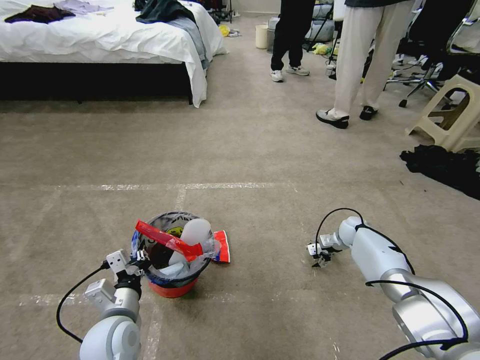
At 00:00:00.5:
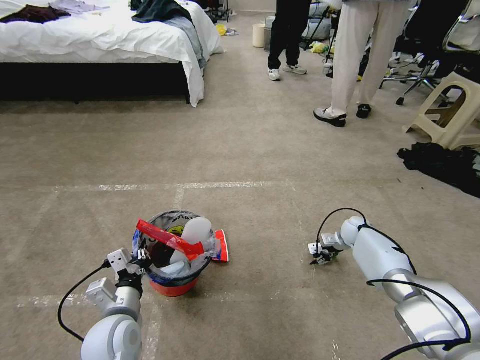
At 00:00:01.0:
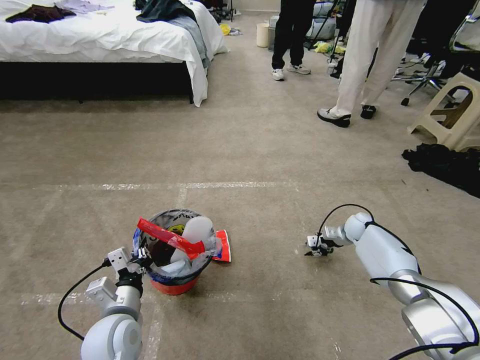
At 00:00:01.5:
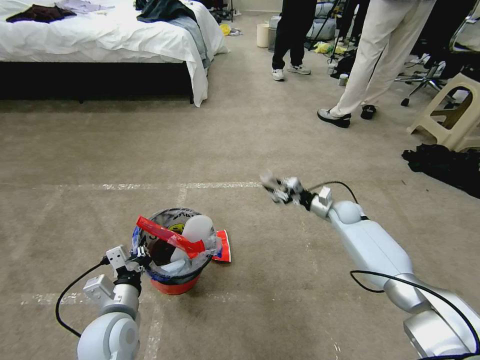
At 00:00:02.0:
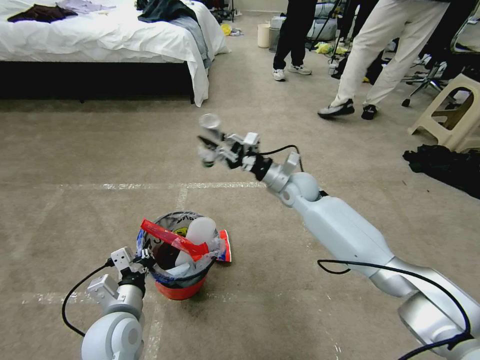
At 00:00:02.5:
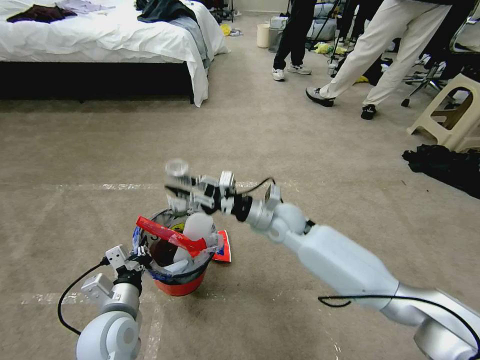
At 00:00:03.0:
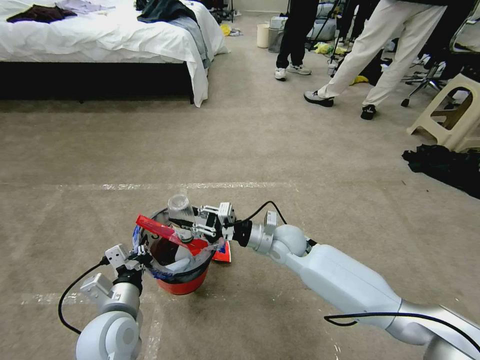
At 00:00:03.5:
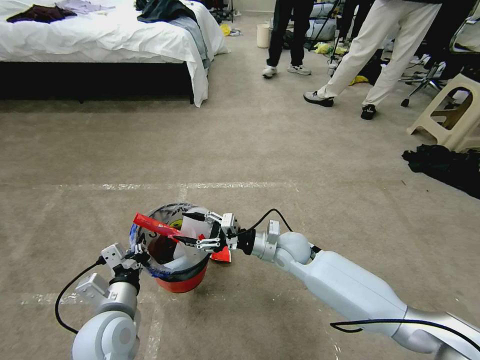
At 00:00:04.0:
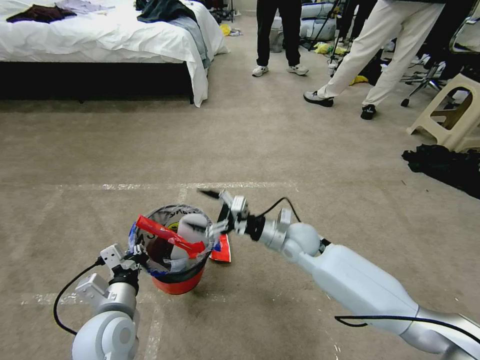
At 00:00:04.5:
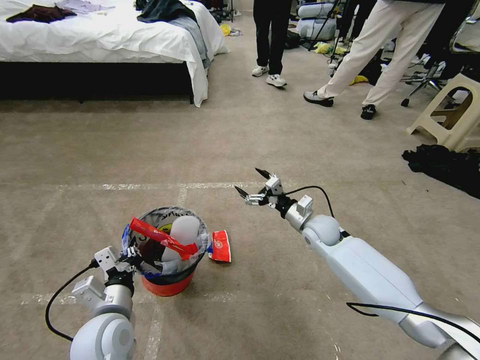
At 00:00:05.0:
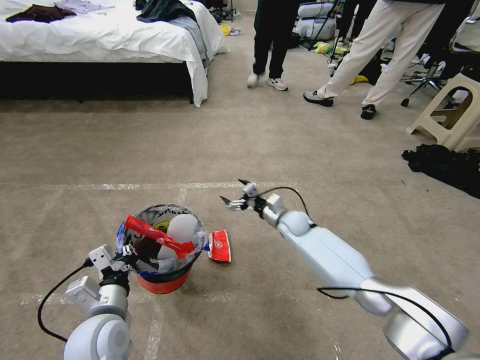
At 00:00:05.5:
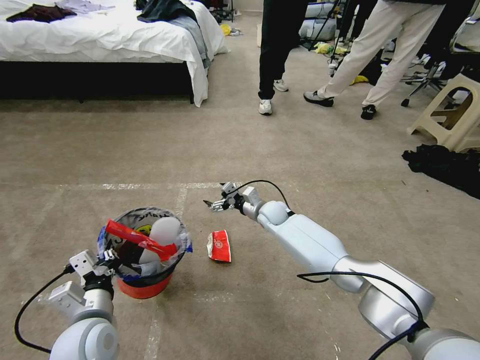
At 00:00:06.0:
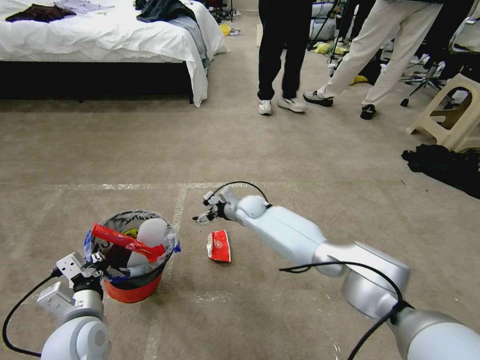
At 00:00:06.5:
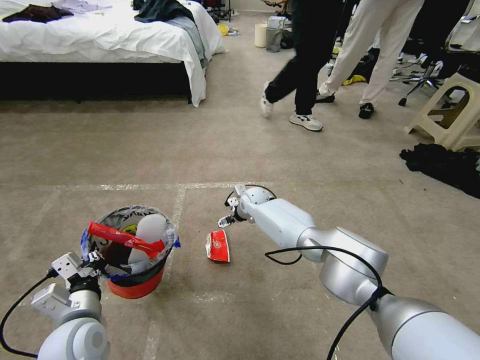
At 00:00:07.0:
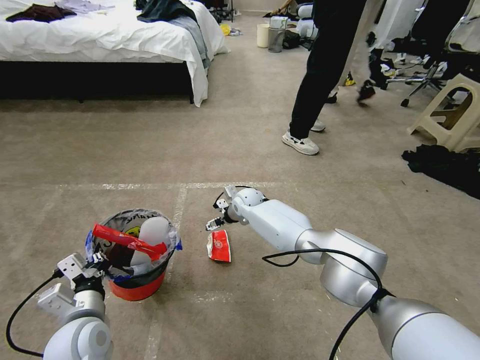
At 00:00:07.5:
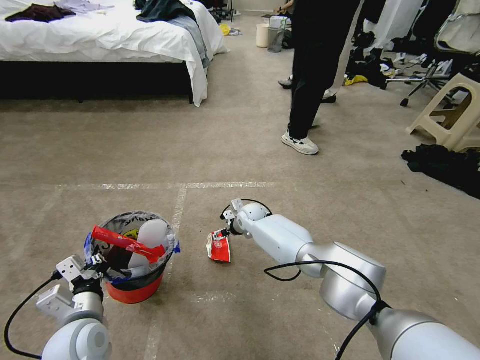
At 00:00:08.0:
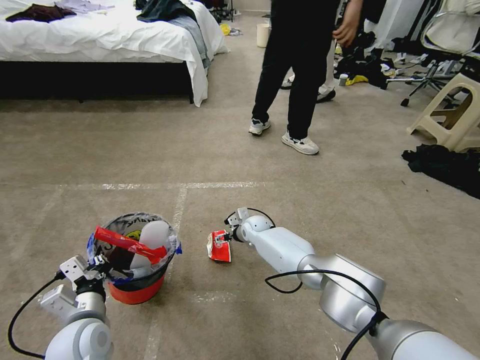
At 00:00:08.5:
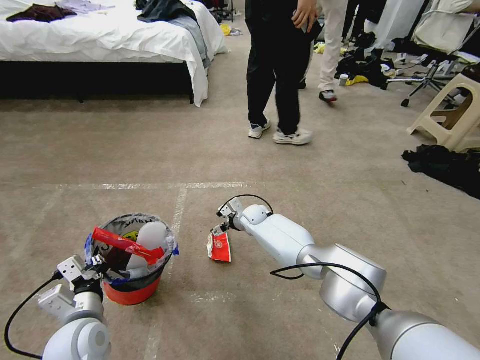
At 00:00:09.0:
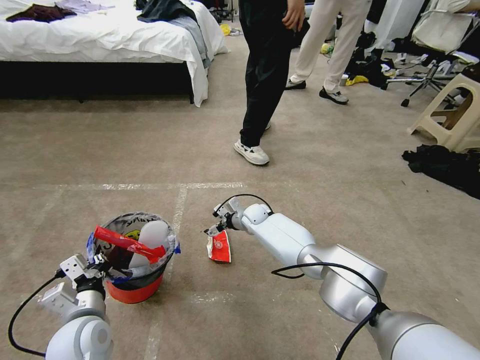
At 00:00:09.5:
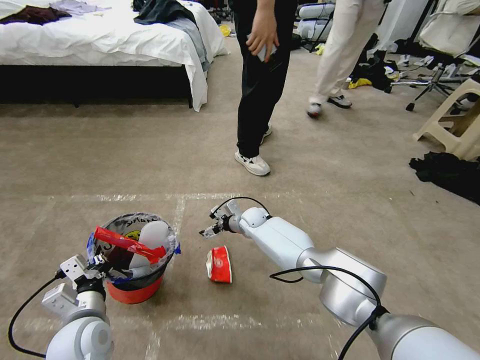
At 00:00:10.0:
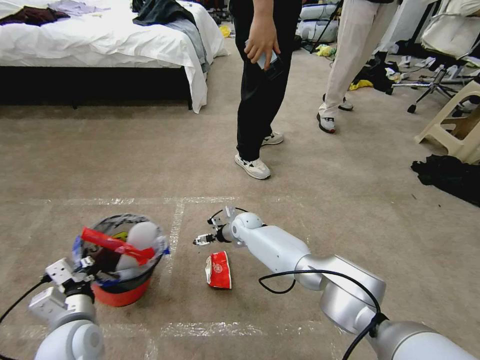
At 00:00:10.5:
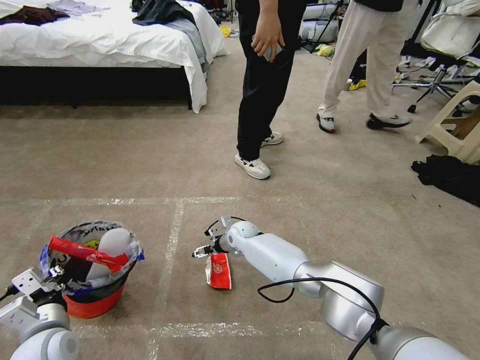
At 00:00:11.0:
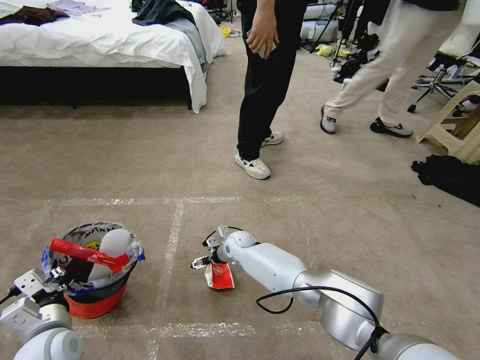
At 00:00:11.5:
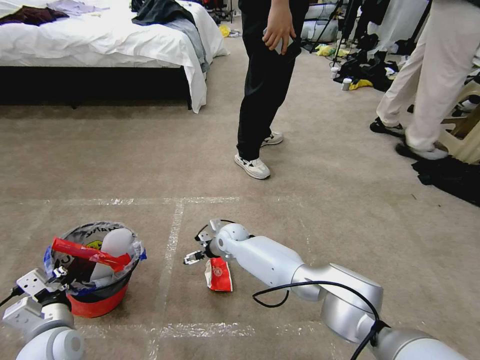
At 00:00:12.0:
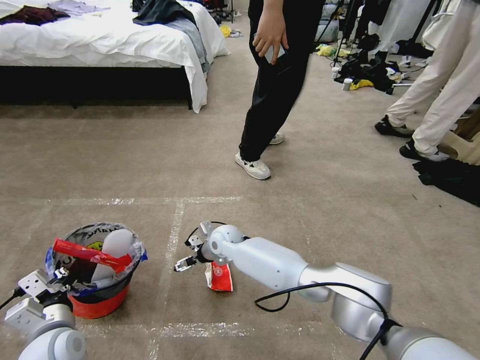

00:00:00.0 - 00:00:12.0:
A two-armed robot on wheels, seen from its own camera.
Task of the whole recording: Pick up the trash bin and place the garbage on the floor into it.
00:00:00.0 - 00:00:02.0: The right gripper shifts about 30 cm to the left and upward, and closes its fingers.
00:00:02.0 - 00:00:04.0: The right gripper moves backward and downward, approximately 15 cm, and opens up.
00:00:04.0 - 00:00:06.0: The left gripper shifts some 5 cm to the left. Meanwhile the right gripper travels forward and to the left by some 20 cm.
00:00:06.0 - 00:00:08.0: The right gripper shifts approximately 10 cm downward.
00:00:10.0 - 00:00:12.0: The right gripper shifts approximately 10 cm to the left and backward.

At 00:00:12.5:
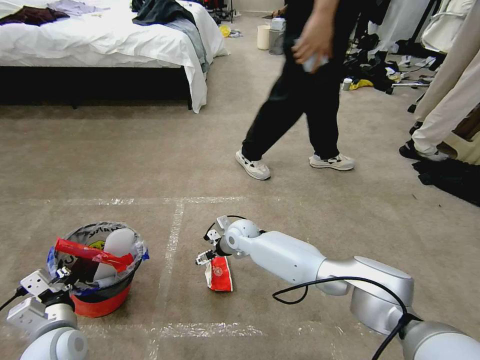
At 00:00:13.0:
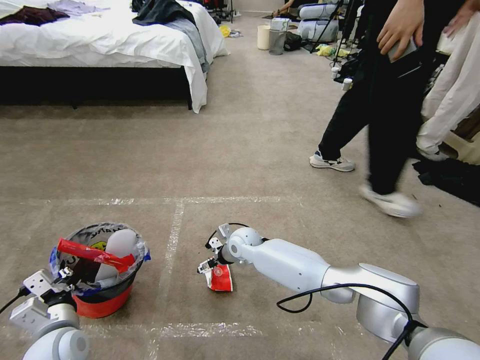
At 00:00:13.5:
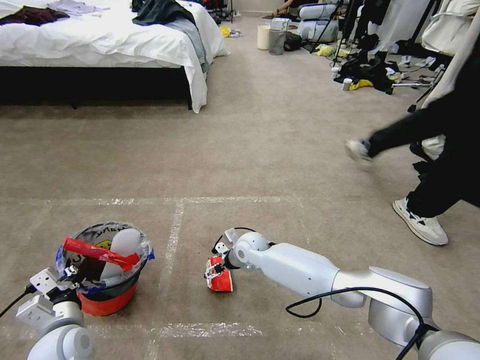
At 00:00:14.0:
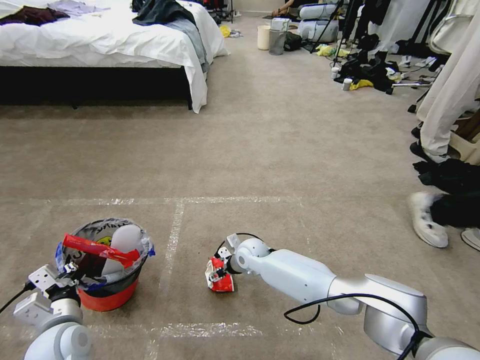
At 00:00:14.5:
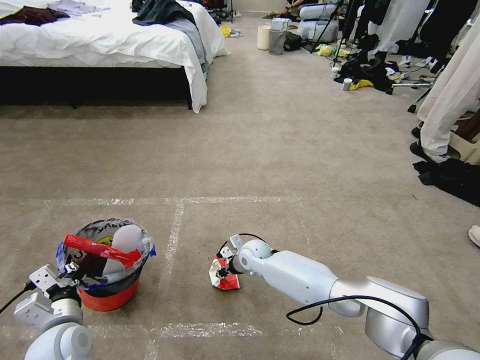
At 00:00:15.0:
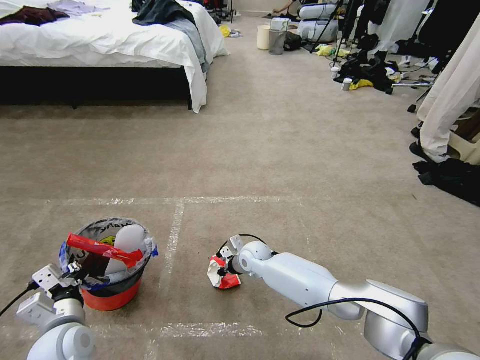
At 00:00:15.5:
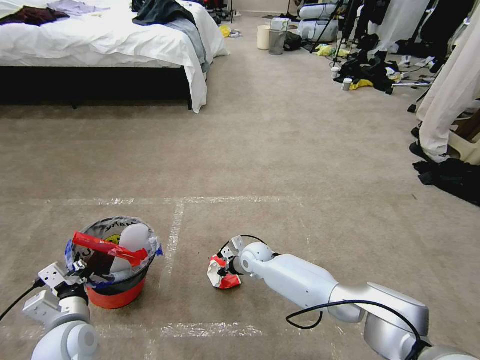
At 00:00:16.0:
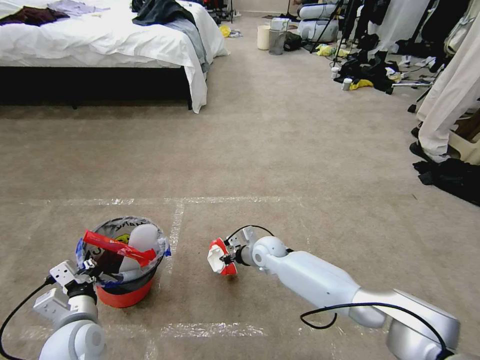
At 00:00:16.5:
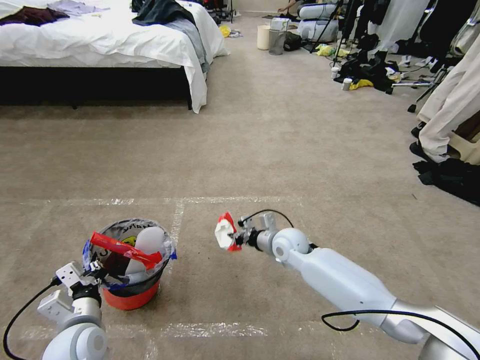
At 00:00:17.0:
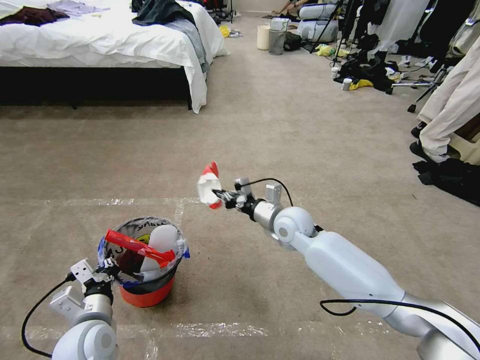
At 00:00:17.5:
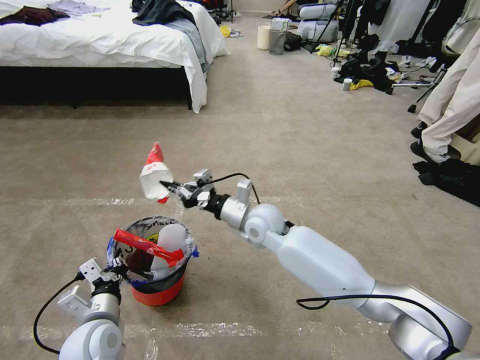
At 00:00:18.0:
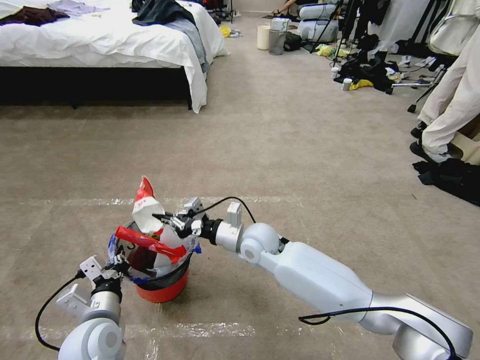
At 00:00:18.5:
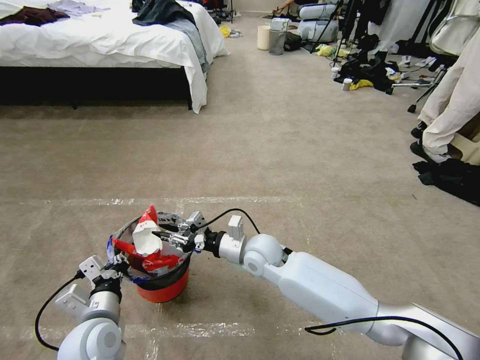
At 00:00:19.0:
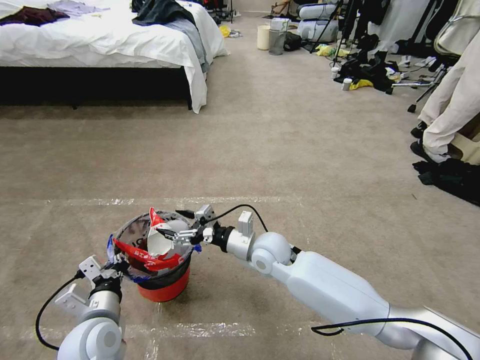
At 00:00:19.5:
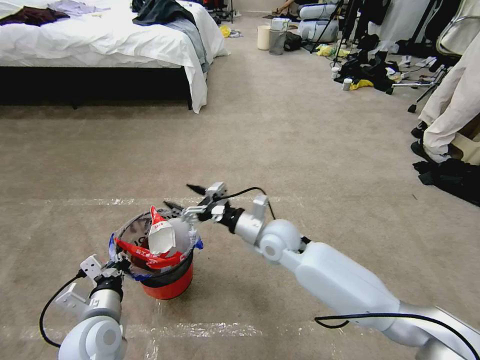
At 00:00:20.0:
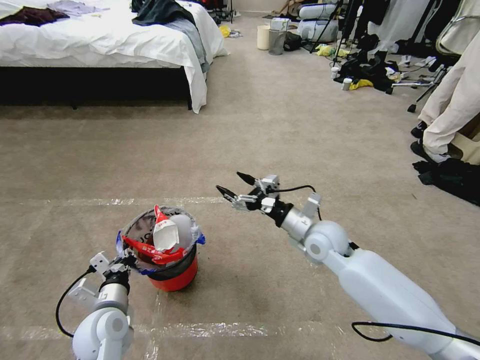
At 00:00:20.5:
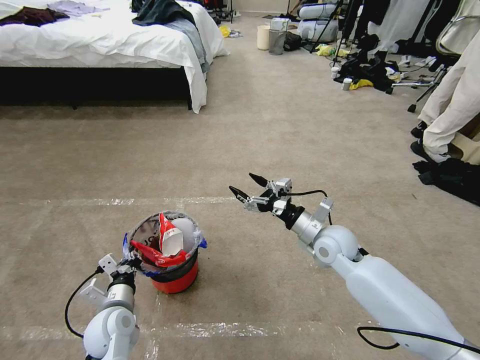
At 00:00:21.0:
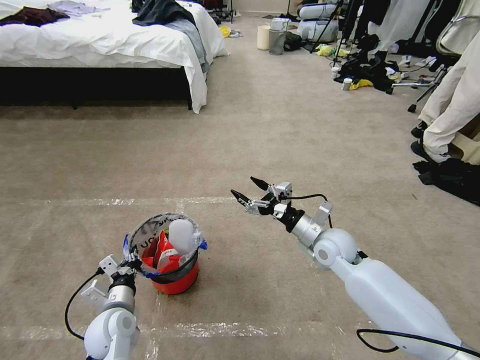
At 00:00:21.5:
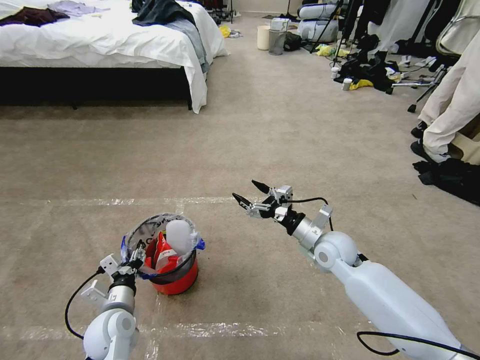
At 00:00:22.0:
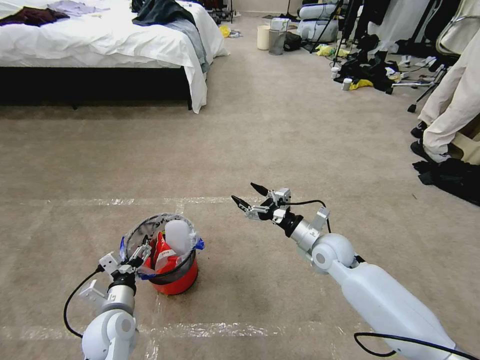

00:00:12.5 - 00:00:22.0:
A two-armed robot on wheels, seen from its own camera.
Task of the whole recording: Pick up the trash bin and place the garbage on the floor into it.
00:00:12.5 - 00:00:14.5: The right gripper goes about 5 cm downward, and closes its fingers.
00:00:14.5 - 00:00:16.5: The right gripper shifts roughly 10 cm to the right and upward.
00:00:16.5 - 00:00:18.0: The right gripper travels to the left and upward by roughly 10 cm.
00:00:18.0 - 00:00:20.0: The left gripper ends up roughly 5 cm from where it was; the right gripper moves to the right, roughly 15 cm, and opens up.
00:00:20.0 - 00:00:22.0: The left gripper opens.

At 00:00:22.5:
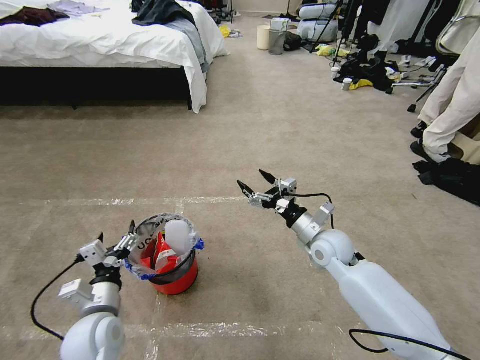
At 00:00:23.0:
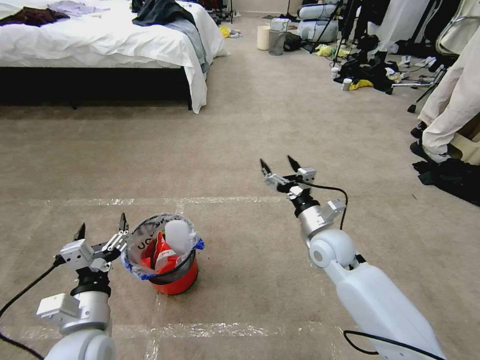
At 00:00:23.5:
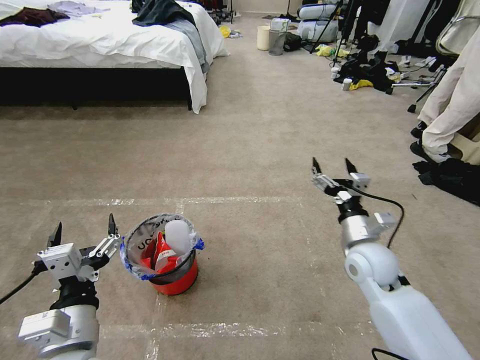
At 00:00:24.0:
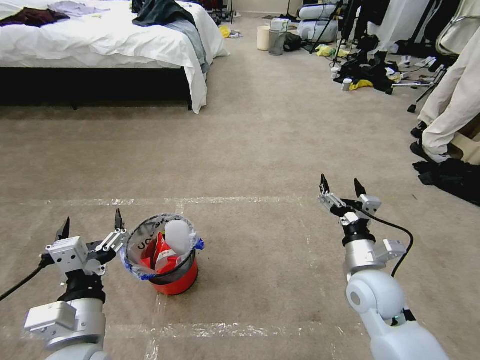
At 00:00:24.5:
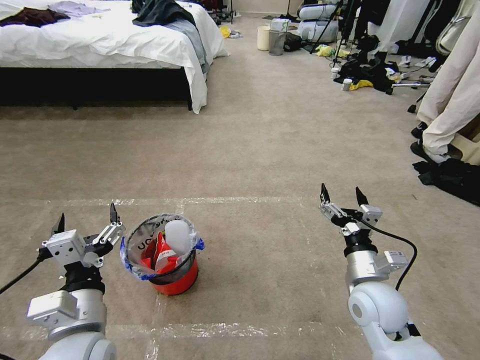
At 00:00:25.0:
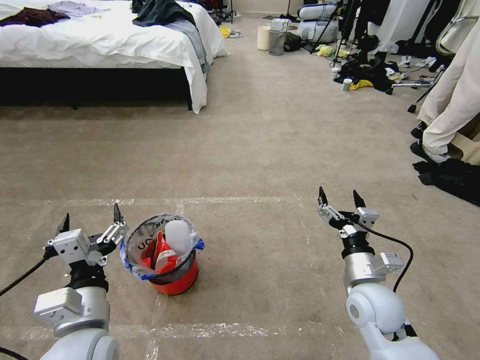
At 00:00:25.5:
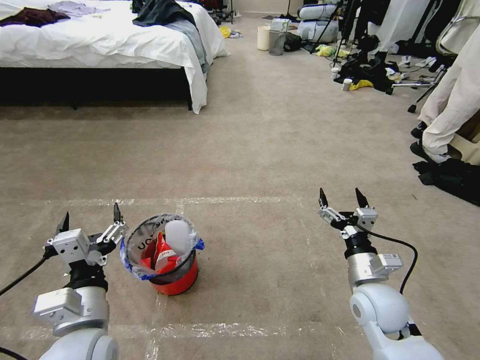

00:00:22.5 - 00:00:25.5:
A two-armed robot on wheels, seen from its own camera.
Task of the whole recording: Pick up the trash bin and place the garbage on the floor into it.
00:00:22.5 - 00:00:24.0: The left gripper moves upward and backward, about 15 cm; the right gripper heads backward, covering roughly 10 cm.
00:00:24.0 - 00:00:25.5: The grippers stay close to where they were, moving slightly.
